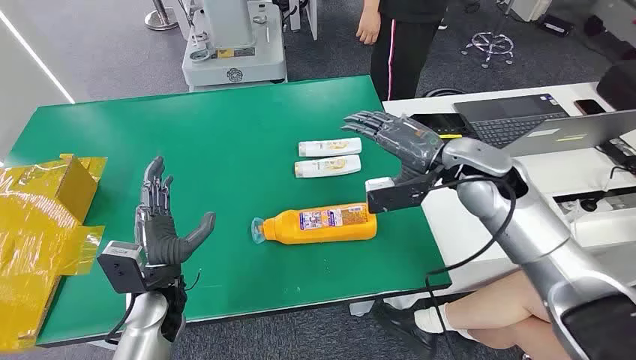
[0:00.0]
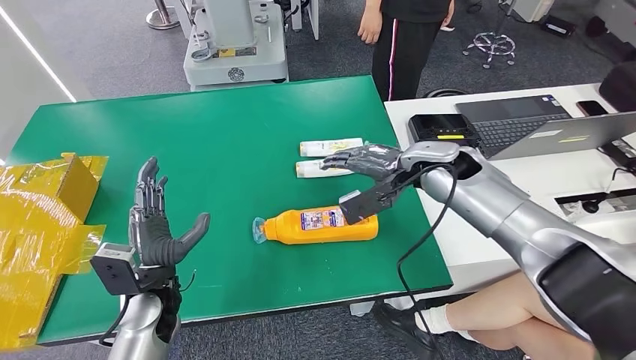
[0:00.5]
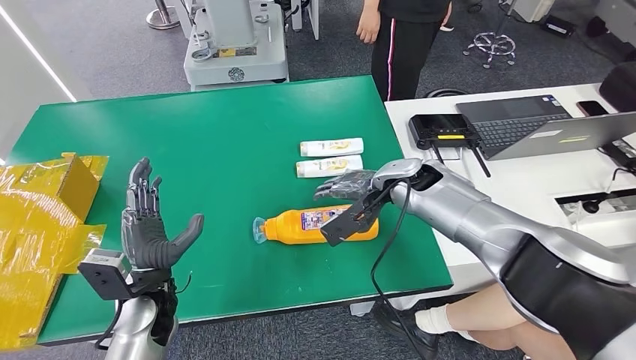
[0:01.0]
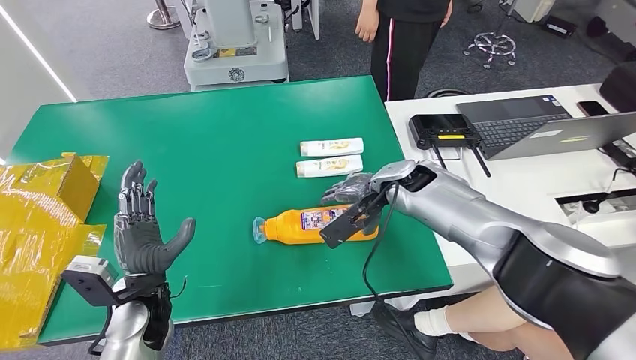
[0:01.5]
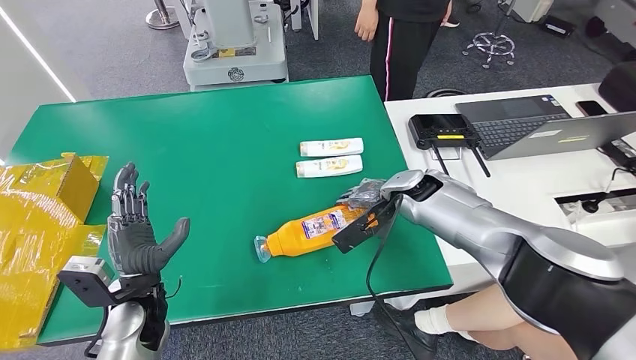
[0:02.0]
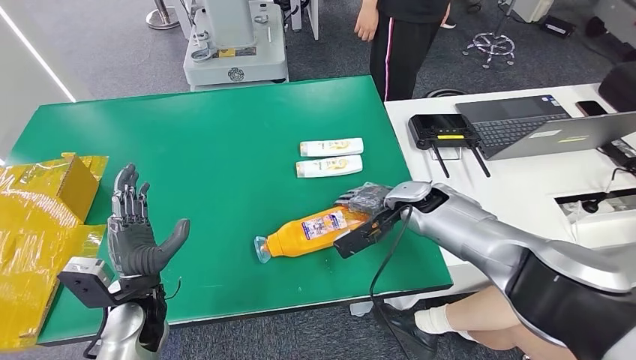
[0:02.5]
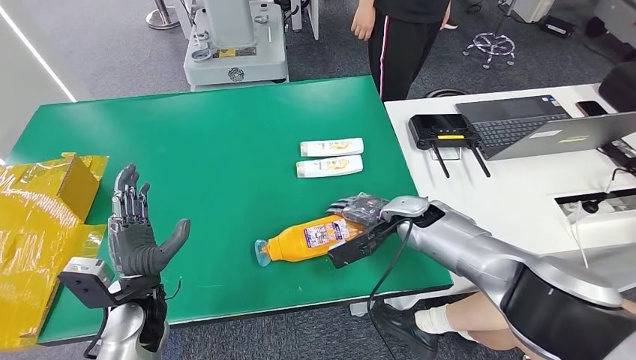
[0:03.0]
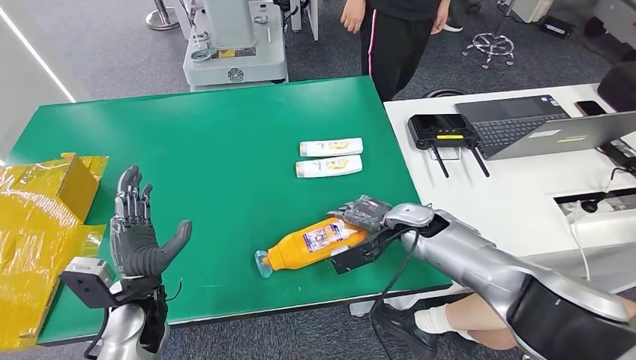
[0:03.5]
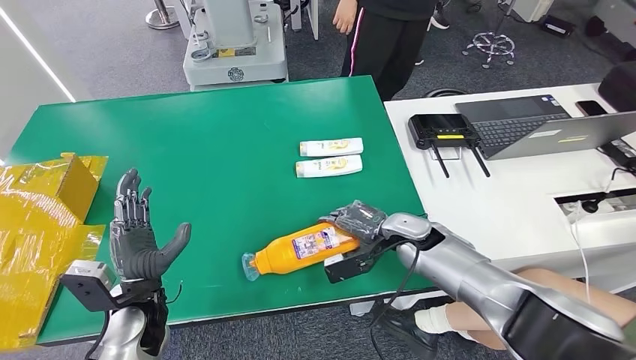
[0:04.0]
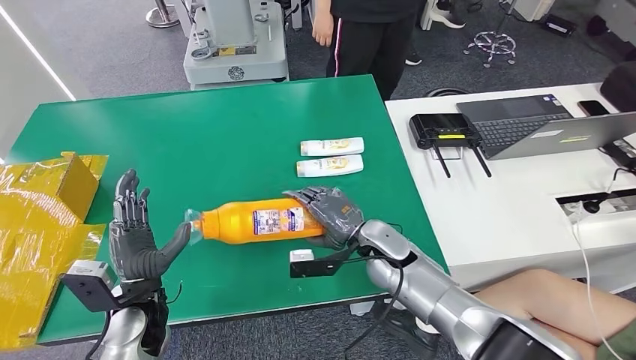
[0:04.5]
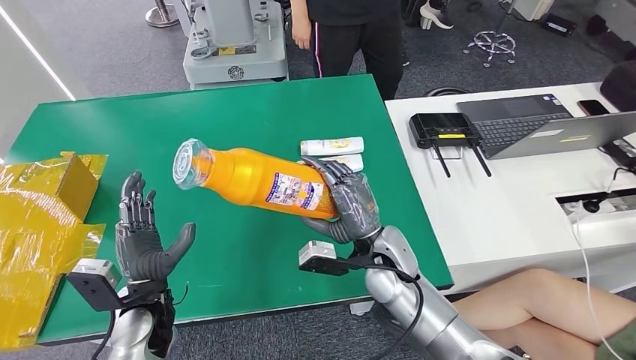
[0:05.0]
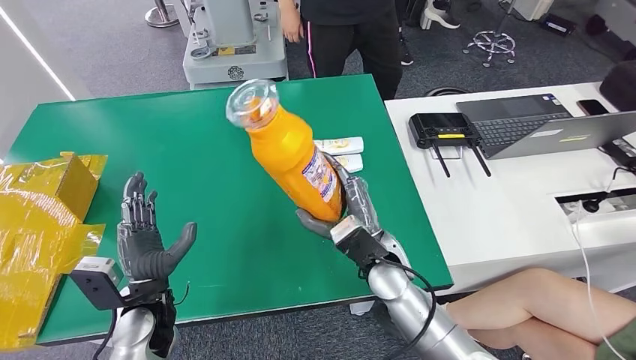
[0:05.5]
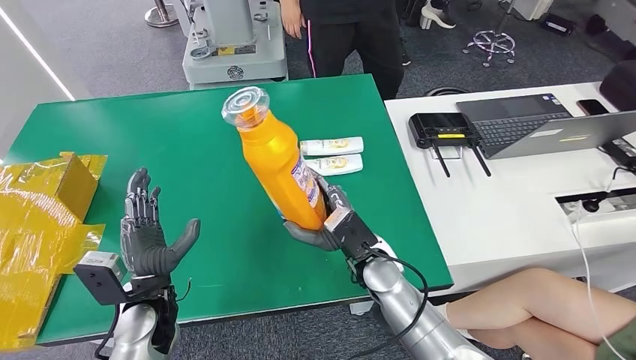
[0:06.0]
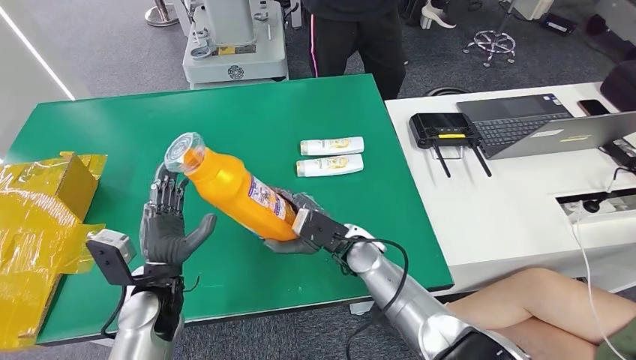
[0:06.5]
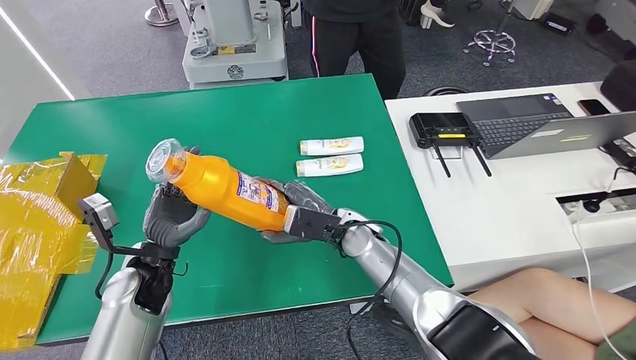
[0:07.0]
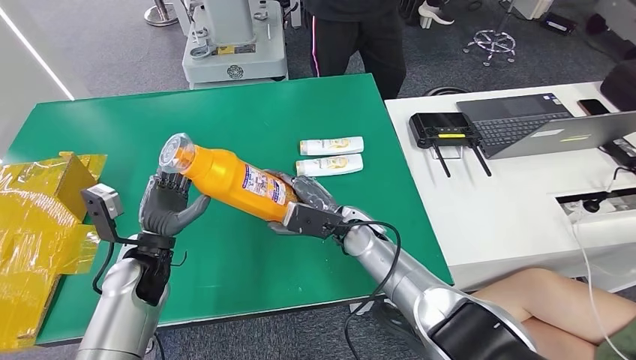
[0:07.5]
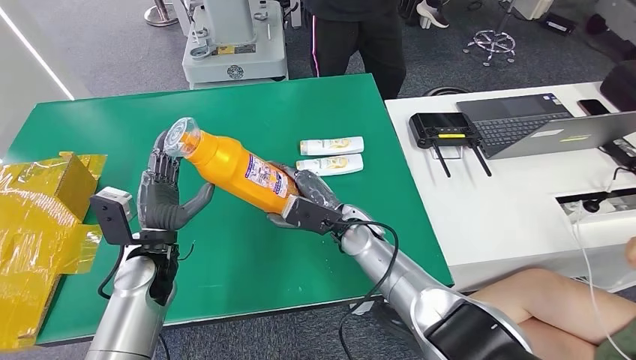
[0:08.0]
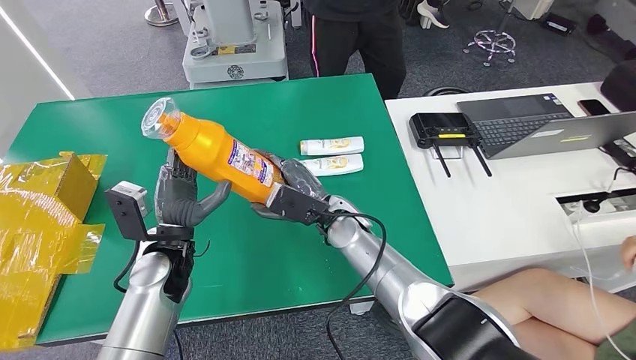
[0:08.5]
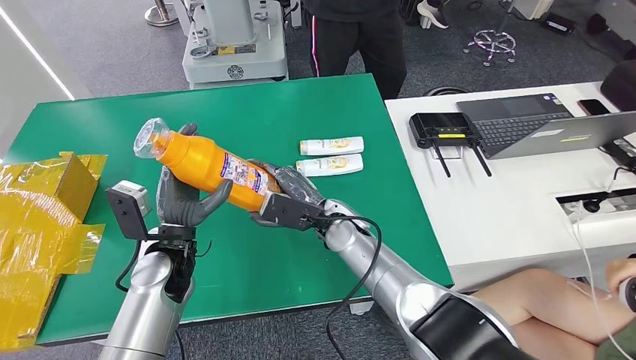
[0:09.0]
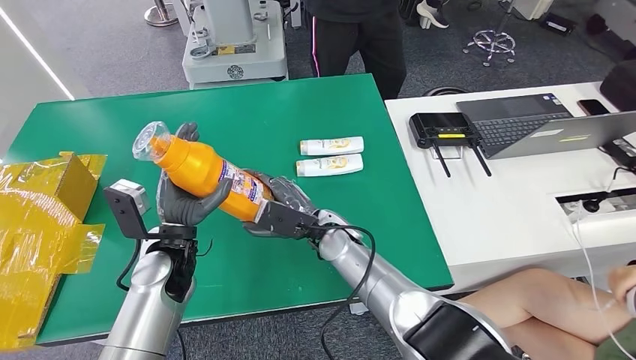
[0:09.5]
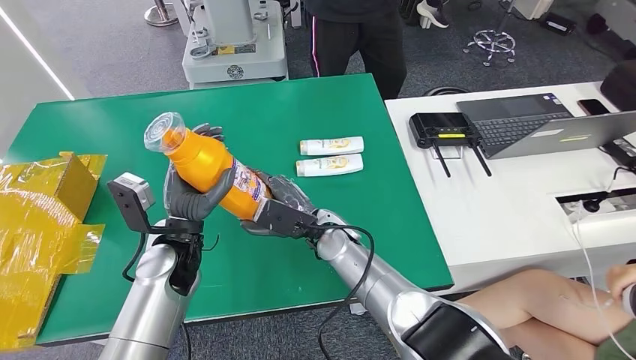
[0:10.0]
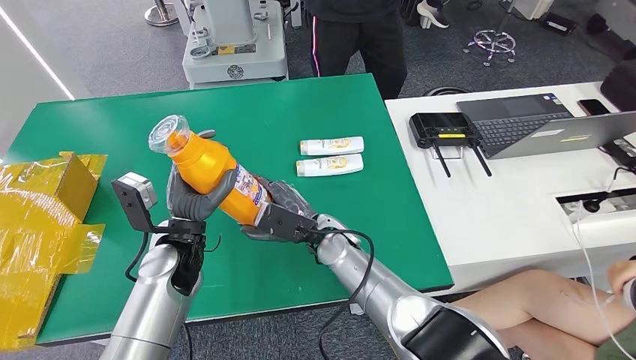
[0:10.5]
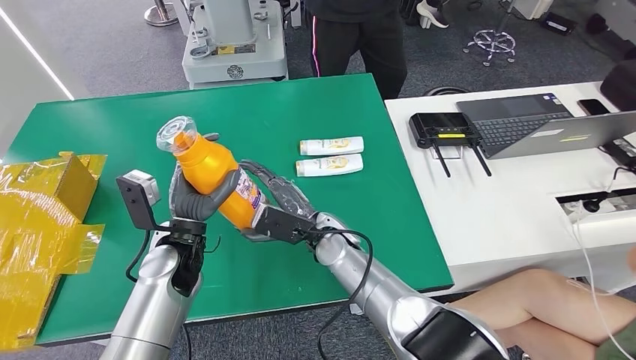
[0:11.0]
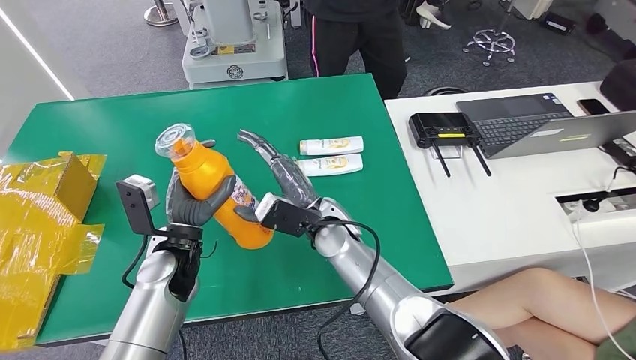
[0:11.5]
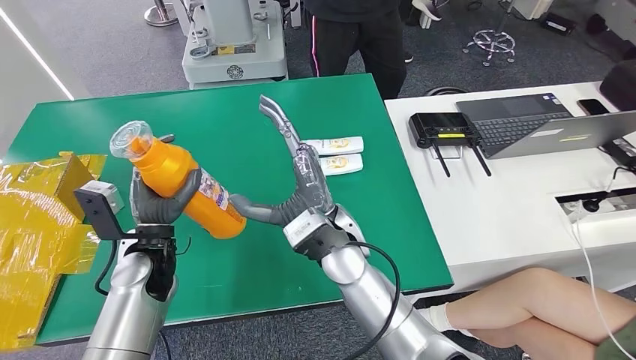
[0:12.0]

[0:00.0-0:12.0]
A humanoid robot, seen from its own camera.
Step, 0:00.0 to 0:05.5: Pick up the bottle from the table.
0:02.0 to 0:04.0: The right hand goes approximately 10 cm downward and backward.
0:06.0 to 0:08.0: Both hands travel together forward, about 5 cm.
0:08.0 to 0:10.0: The right hand shifts roughly 5 cm to the left. The left hand shifts by approximately 5 cm.
0:10.0 to 0:12.0: The right hand heads upward, covering approximately 10 cm.

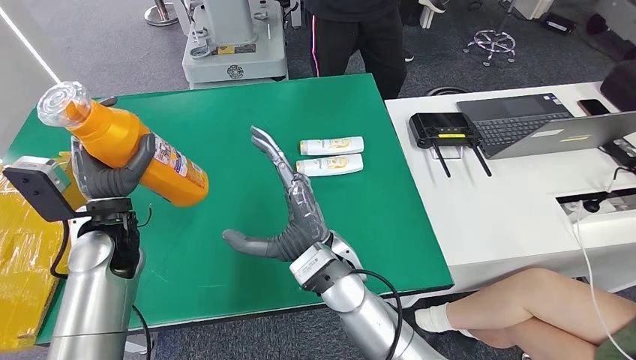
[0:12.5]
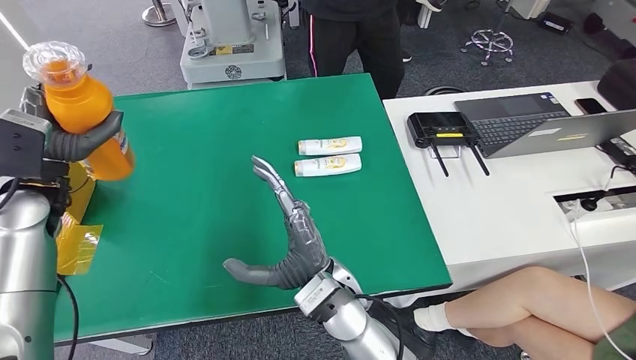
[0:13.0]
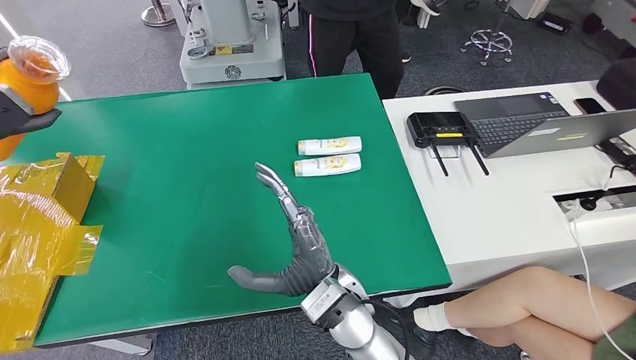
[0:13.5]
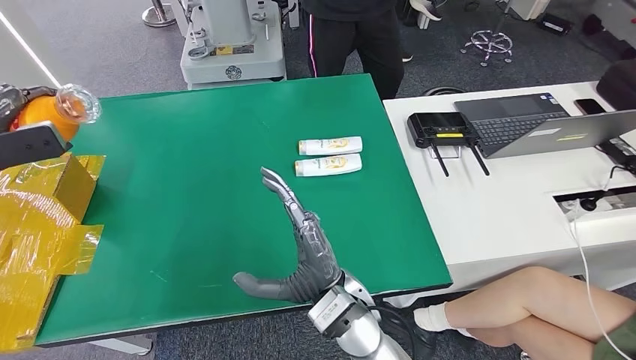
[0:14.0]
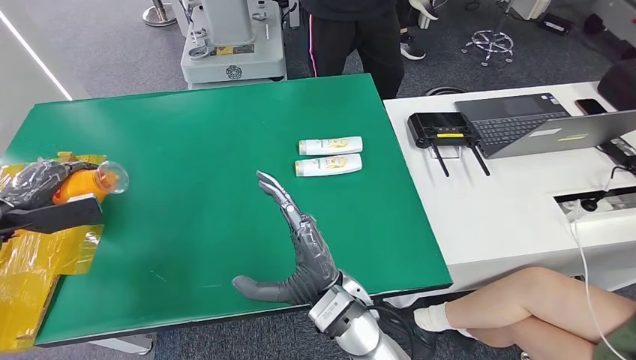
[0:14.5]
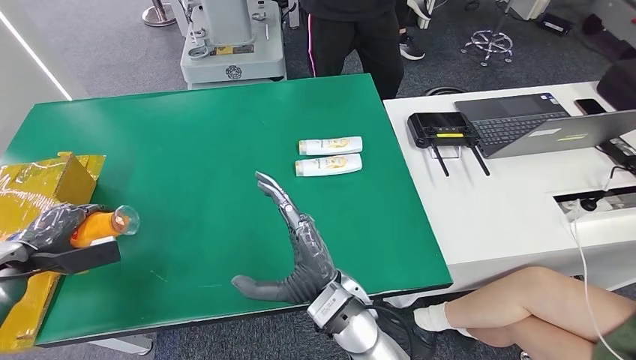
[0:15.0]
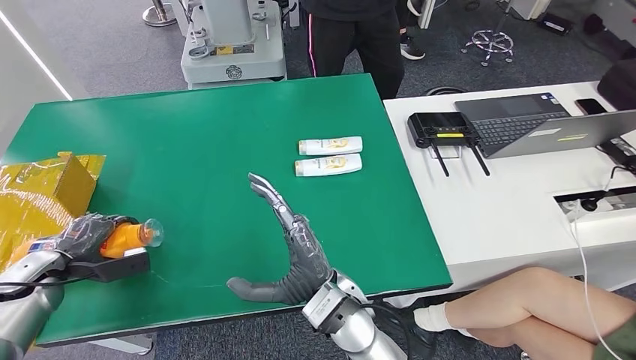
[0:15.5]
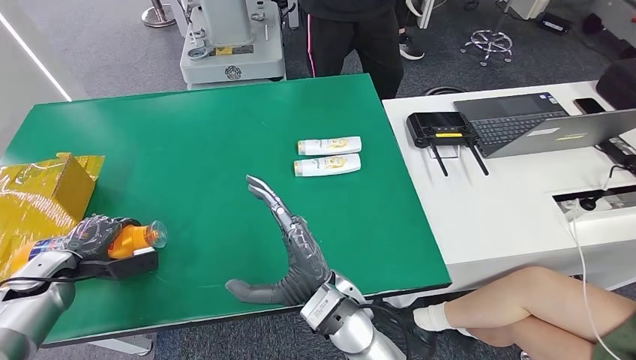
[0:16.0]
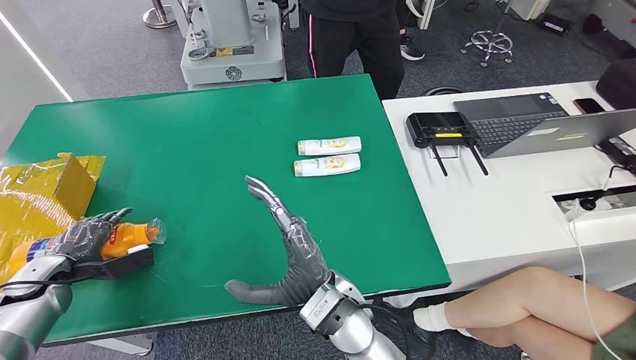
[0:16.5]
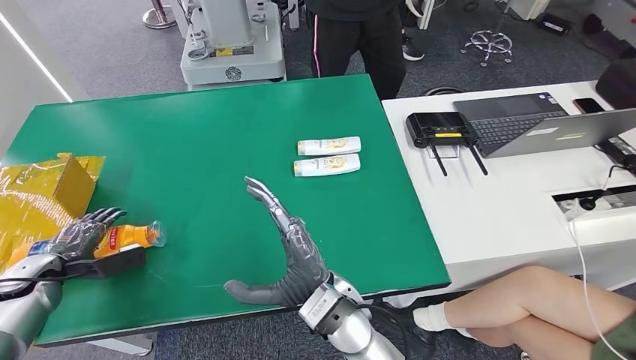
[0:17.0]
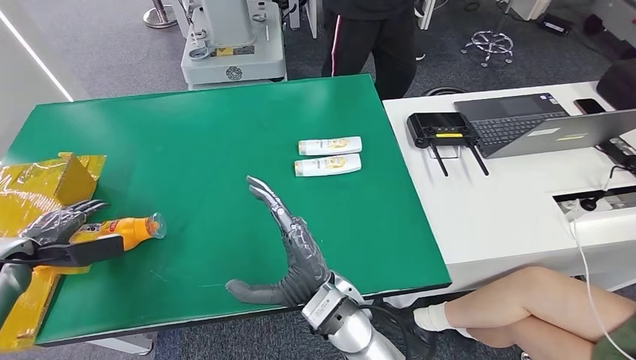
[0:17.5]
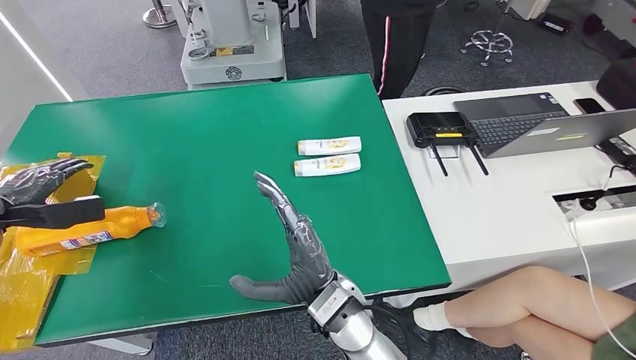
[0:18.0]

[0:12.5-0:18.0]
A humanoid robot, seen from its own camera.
Step, 0:12.5 to 0:18.0: Turn the bottle to the front side.
0:14.5 to 0:16.0: The left hand moves downward, roughly 10 cm.
0:16.0 to 0:18.0: The left hand shifts some 15 cm upward, to the left and forward.
